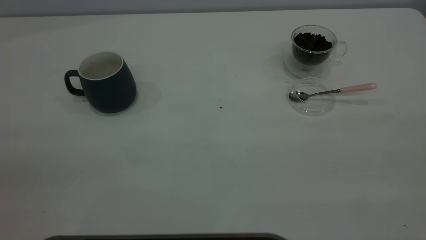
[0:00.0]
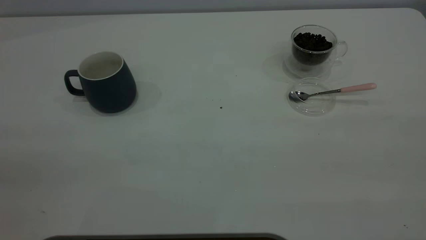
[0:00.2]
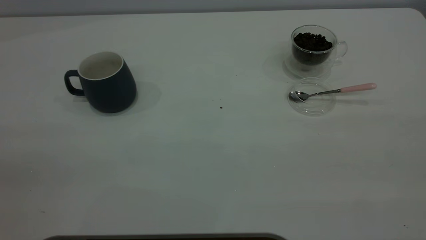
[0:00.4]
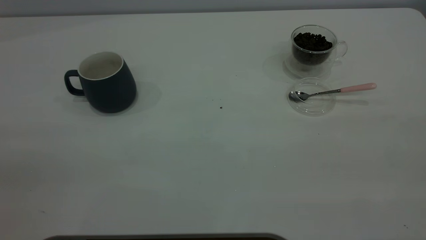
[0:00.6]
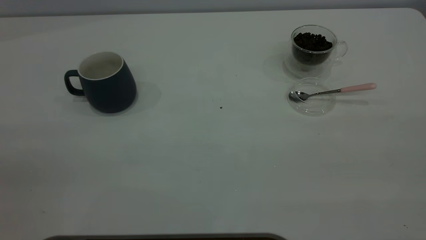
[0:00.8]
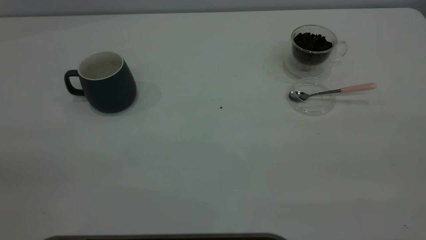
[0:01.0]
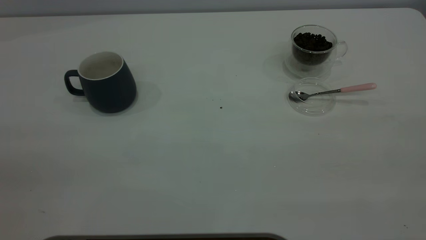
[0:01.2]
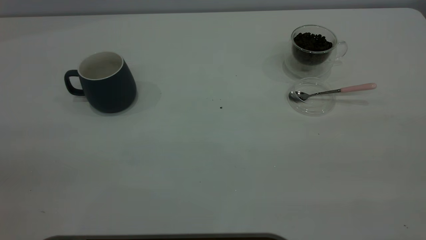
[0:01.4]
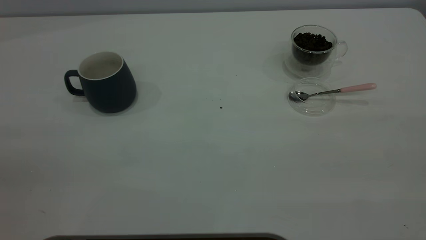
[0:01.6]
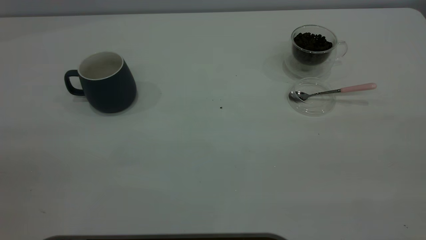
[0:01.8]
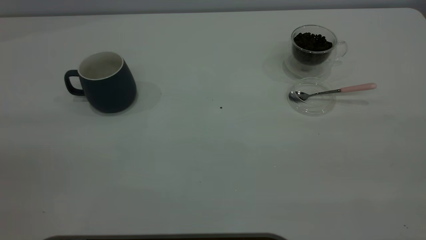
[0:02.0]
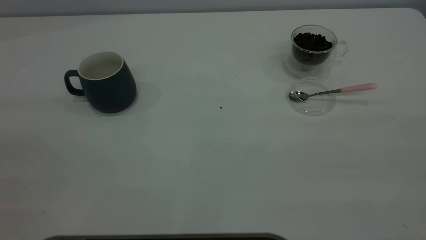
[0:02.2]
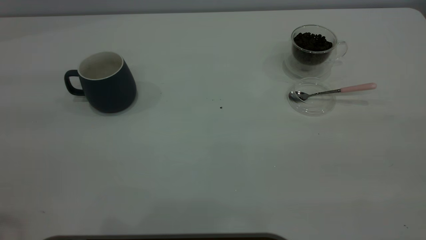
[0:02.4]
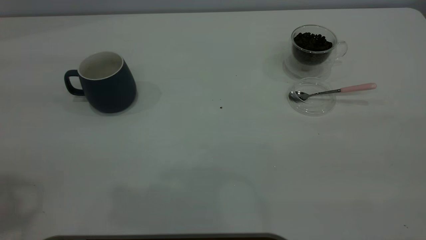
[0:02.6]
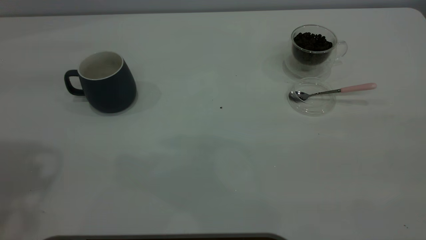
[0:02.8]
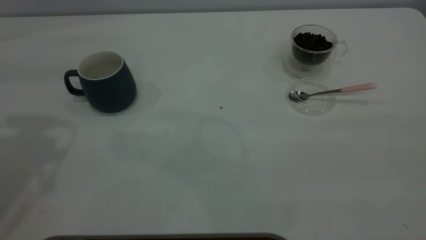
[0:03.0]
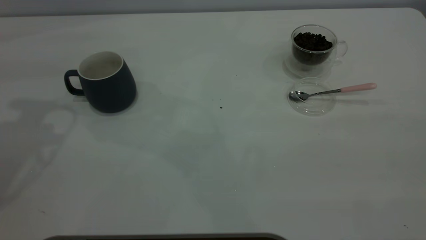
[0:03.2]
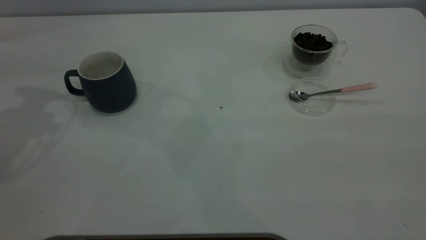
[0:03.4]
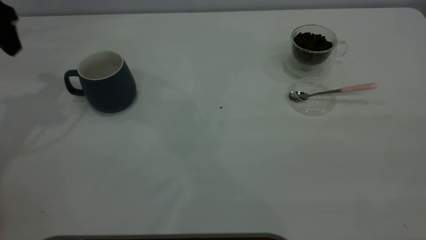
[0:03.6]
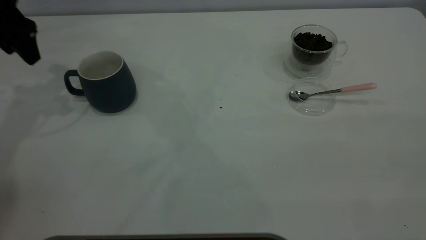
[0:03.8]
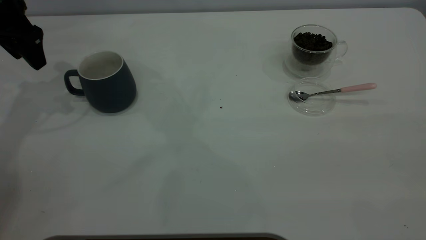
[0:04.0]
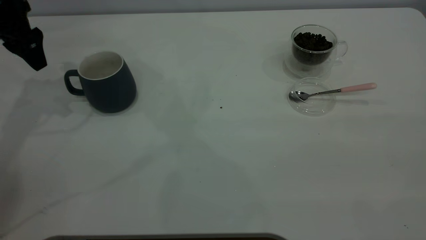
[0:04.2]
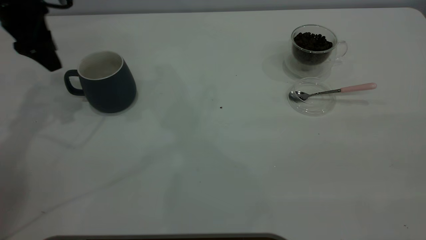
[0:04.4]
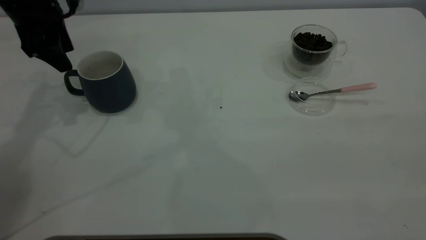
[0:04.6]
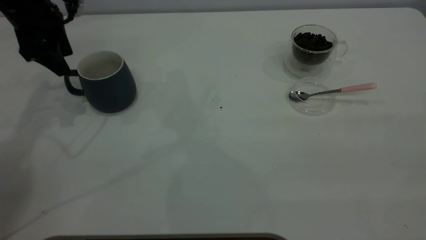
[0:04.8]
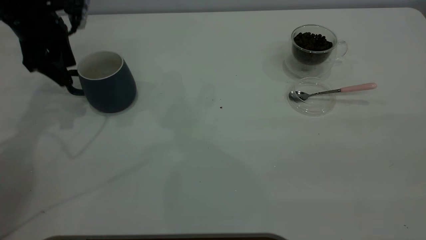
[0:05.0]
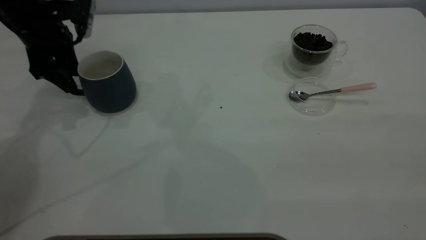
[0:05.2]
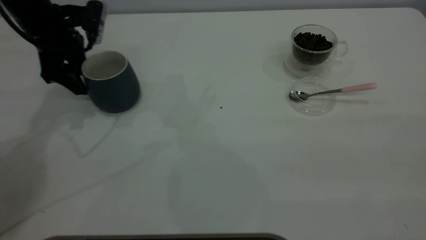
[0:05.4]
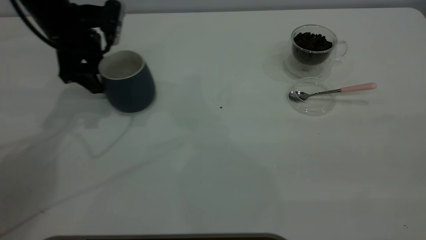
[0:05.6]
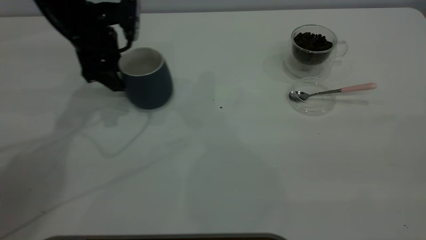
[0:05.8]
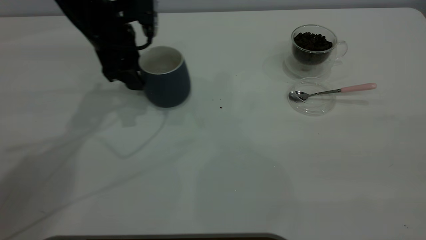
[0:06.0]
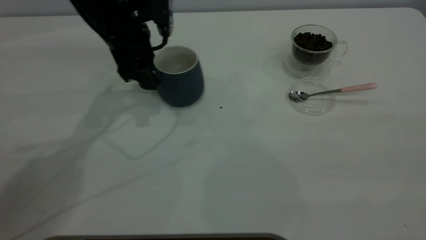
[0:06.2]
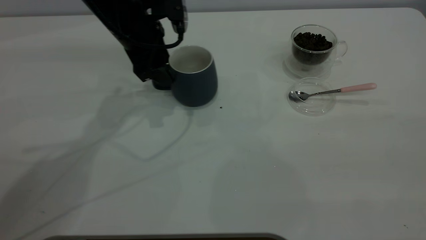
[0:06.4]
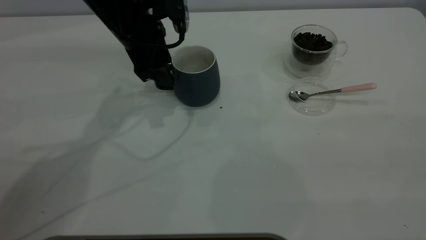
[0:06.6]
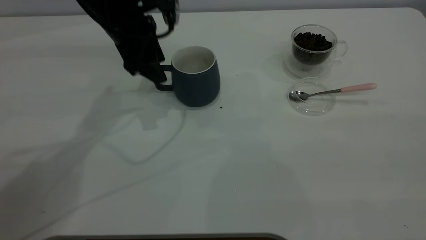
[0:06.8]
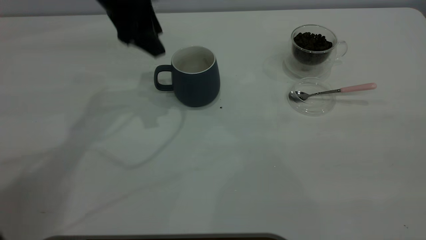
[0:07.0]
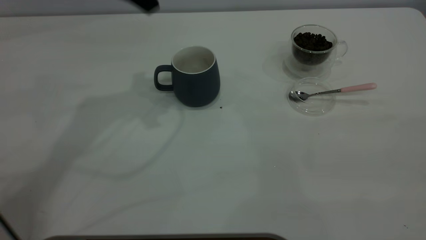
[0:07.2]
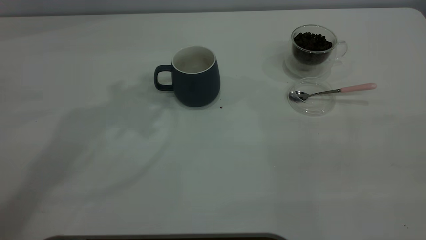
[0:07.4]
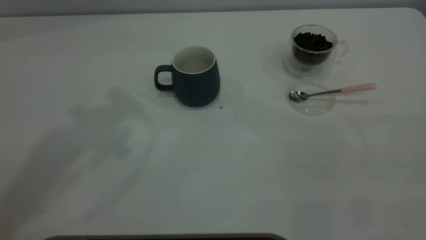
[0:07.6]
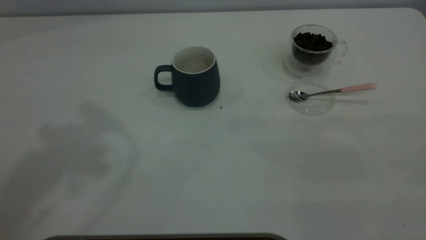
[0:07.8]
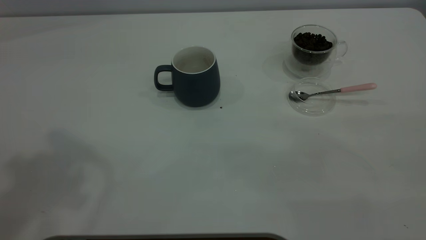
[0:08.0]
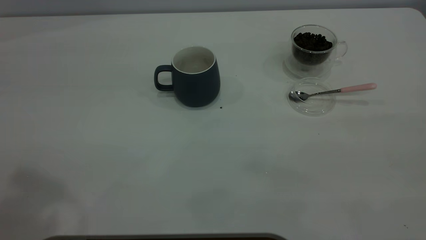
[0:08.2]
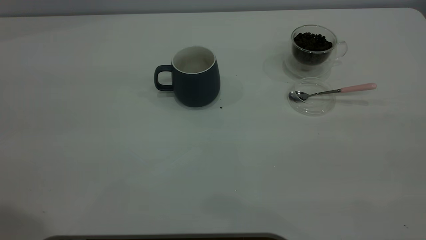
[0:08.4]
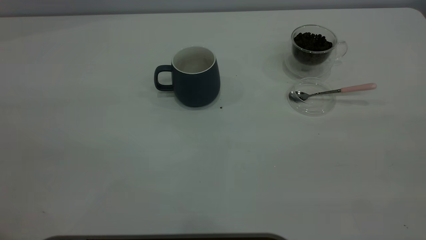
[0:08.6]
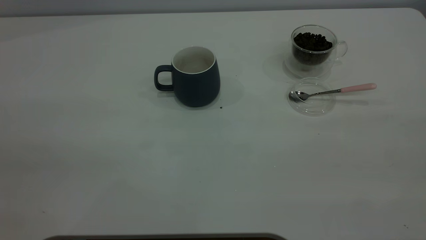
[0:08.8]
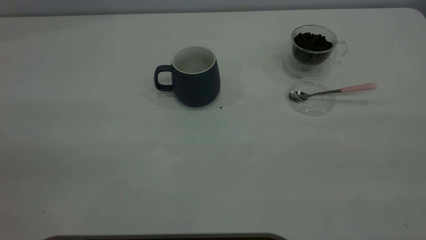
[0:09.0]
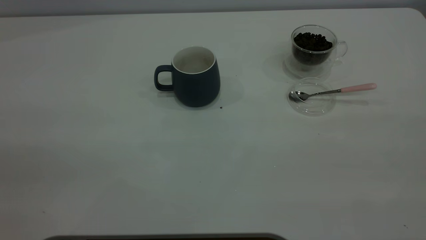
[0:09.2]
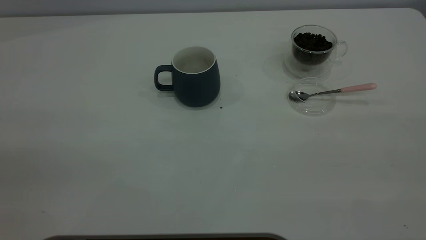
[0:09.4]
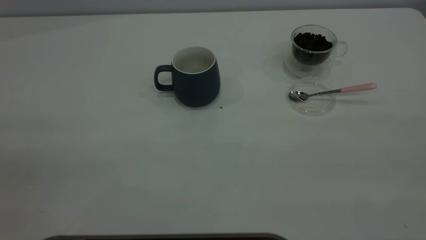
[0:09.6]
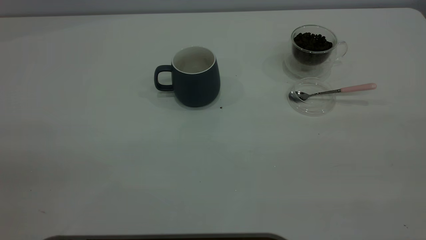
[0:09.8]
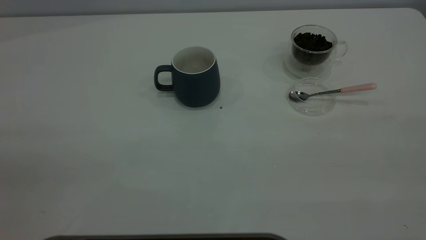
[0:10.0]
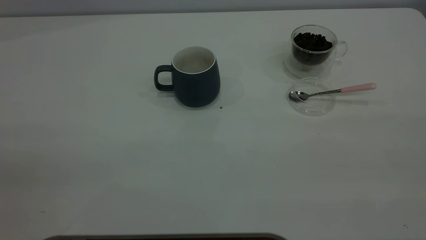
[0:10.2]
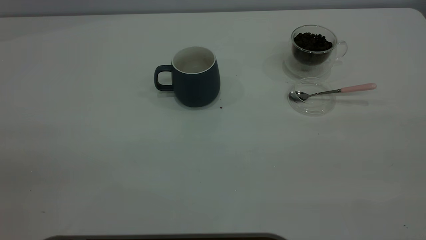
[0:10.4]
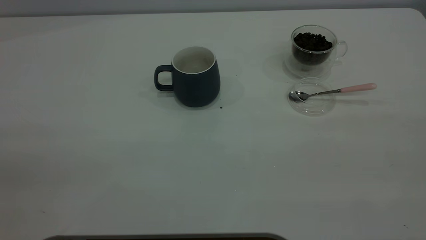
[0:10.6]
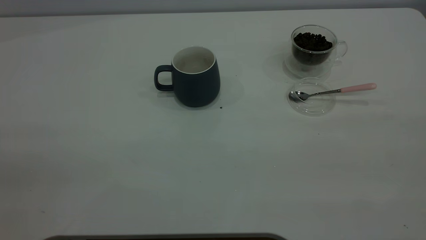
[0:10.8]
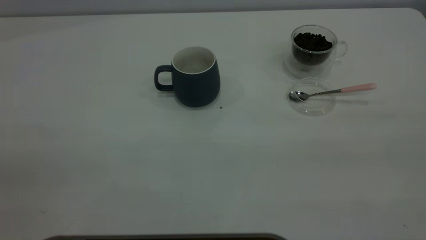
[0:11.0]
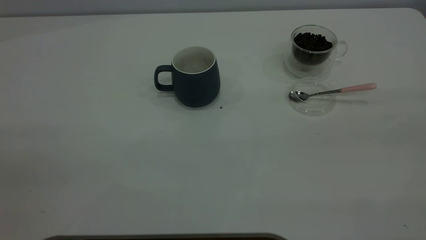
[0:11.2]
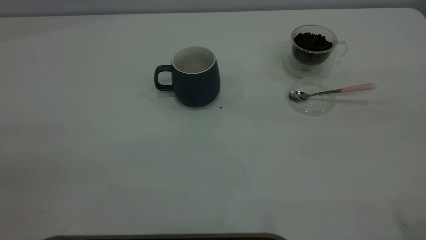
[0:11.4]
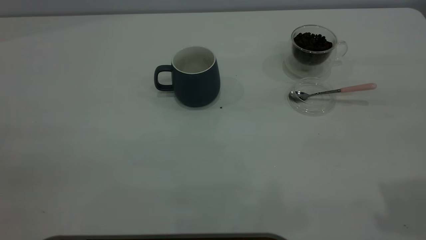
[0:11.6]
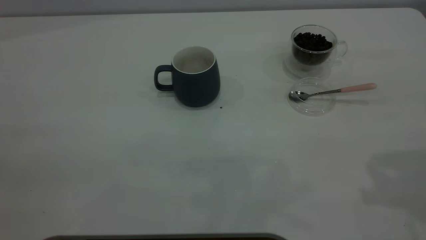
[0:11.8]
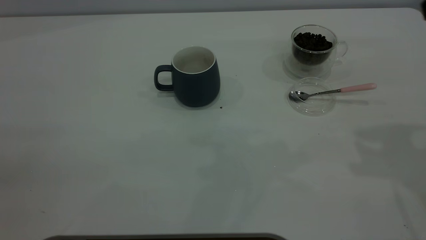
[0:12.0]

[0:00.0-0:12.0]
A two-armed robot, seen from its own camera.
Task of the whole recording: the left gripper place the grey cup in the center of the table, the right gripper take the pink spoon from the cup lid and scoop out the coffee beans from the coffee cup and put them into the grey cup, the right gripper put the spoon back into the cup lid.
Step, 0:00.0 to 0:06.8: Move the cup to the center of view.
0:00.0 to 0:01.6: Neither gripper changes place.
0:03.0 to 0:04.4: The left gripper moves forward and downward, about 20 cm.
0:04.4 to 0:06.0: The left gripper goes about 10 cm to the right.
0:06.0 to 0:07.6: The left gripper goes roughly 30 cm upward and backward.

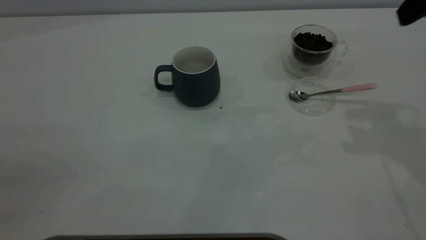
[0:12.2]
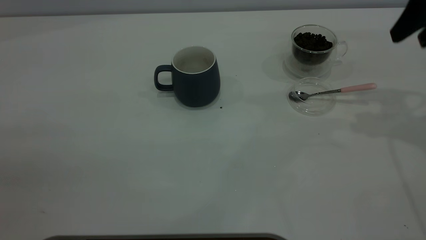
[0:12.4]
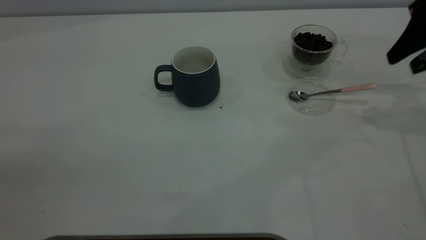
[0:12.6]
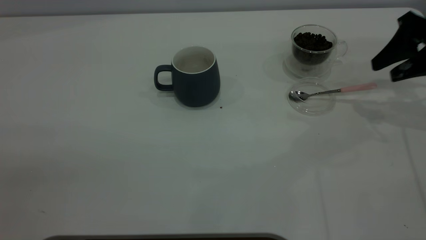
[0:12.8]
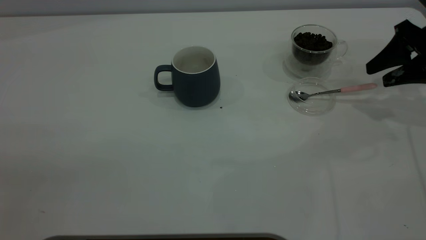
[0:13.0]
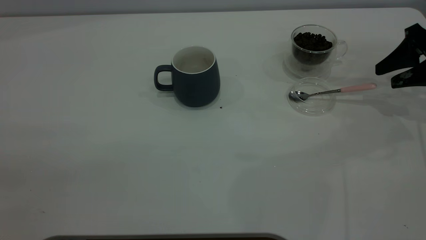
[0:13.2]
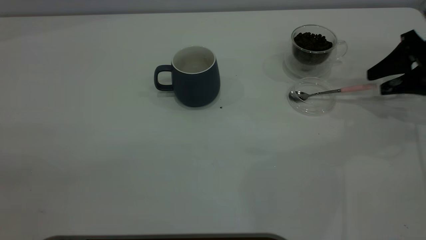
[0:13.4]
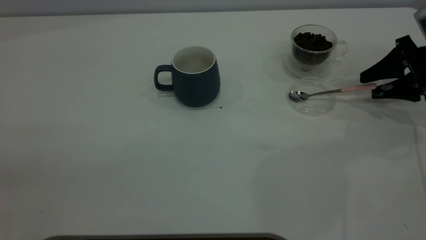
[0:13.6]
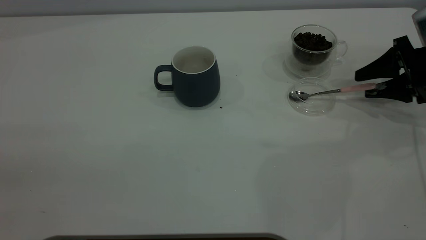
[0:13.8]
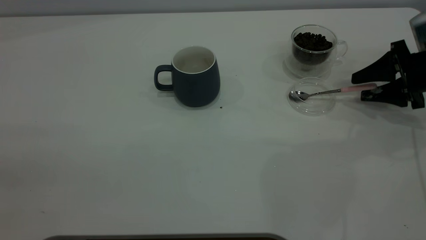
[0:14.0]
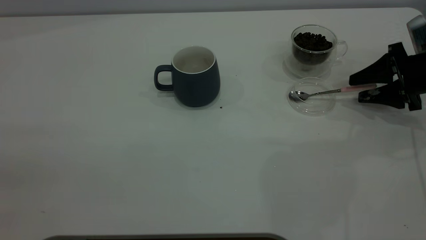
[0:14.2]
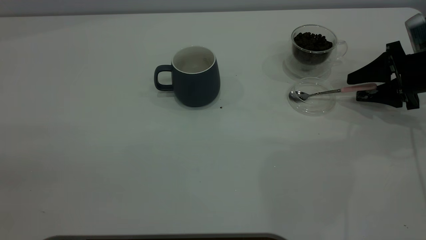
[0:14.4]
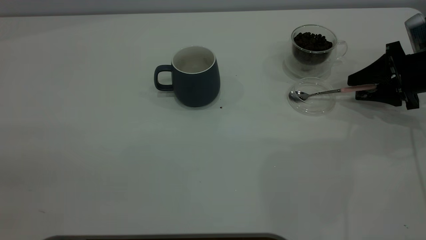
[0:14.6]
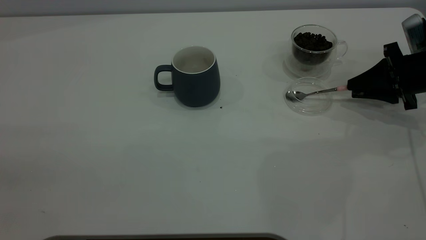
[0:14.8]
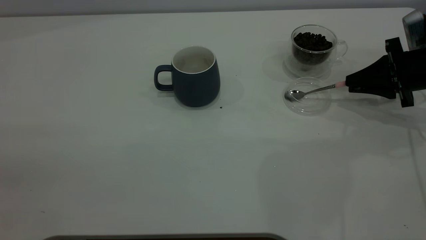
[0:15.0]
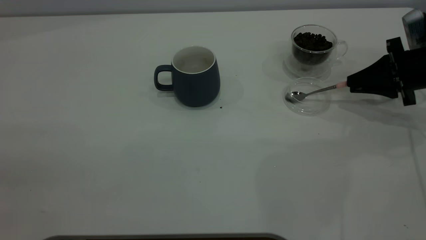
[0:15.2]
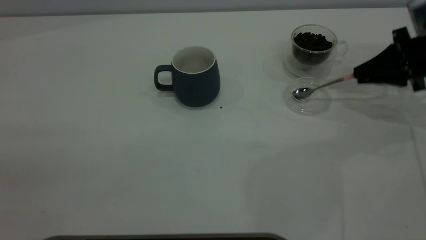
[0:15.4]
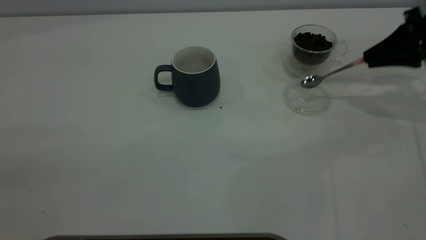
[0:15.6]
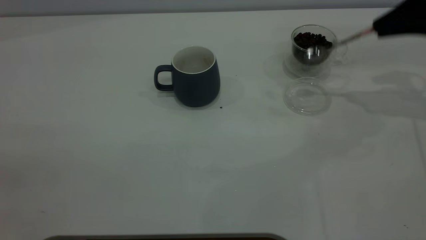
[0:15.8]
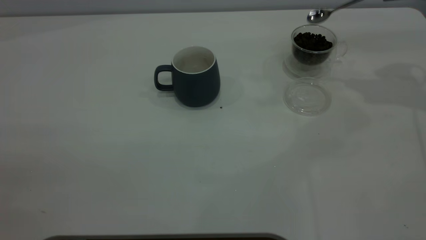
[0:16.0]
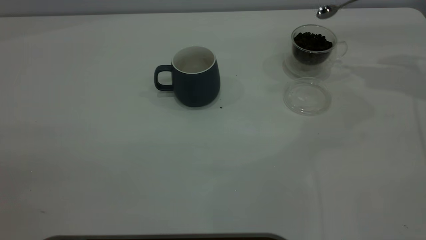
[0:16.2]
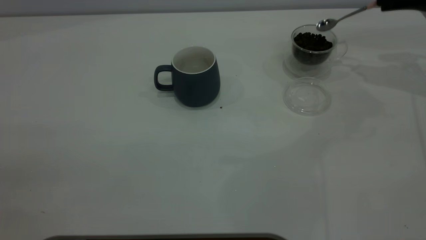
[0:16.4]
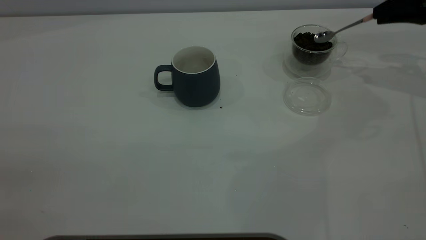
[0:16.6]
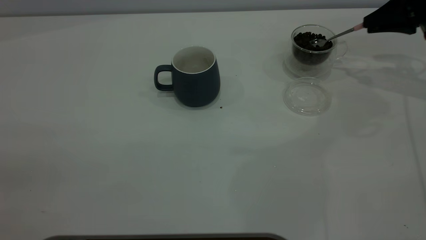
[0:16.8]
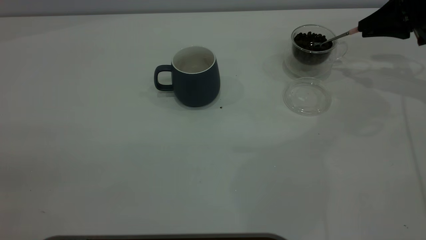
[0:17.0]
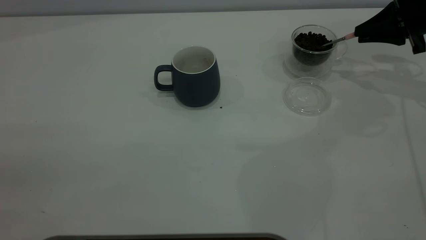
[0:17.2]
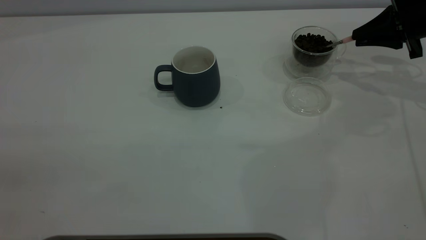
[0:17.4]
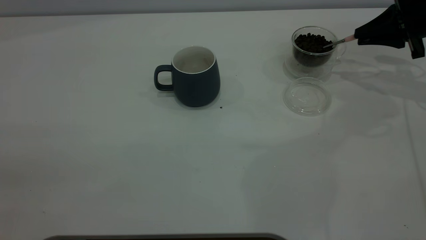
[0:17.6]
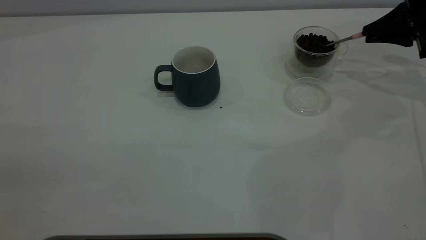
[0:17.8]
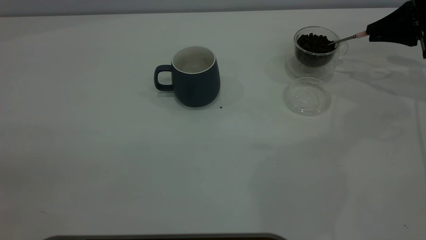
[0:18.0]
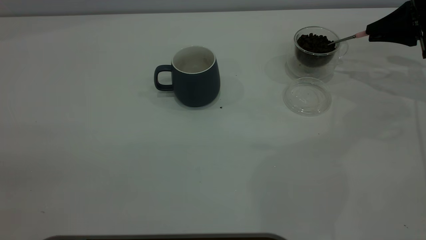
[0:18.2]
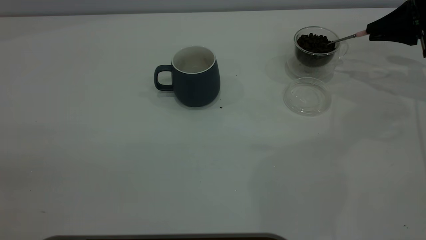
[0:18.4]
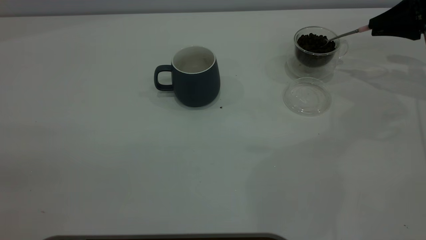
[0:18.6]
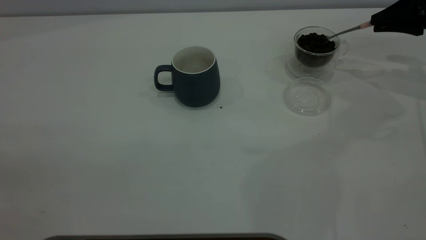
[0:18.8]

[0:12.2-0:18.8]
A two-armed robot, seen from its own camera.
Task of the whole recording: the left gripper place the grey cup in the center of the table, the right gripper take the pink spoon from the cup lid and scoop out the coffee beans from the coffee cup and put them into the grey cup, the right gripper put the spoon back into the cup lid.
Step, 0:12.2 to 0:15.6: Pick up the spoon.
0:12.2 to 0:13.8: The right gripper travels downward by some 20 cm.
0:13.8 to 0:15.4: The right gripper closes up.
0:15.4 to 0:17.2: The right gripper shifts about 5 cm forward, and reaches some 10 cm upward, then returns.
0:17.2 to 0:18.8: The grippers move only a little.
